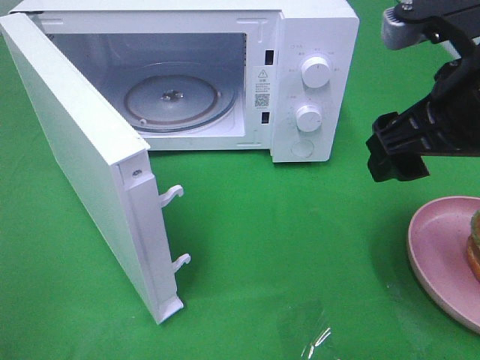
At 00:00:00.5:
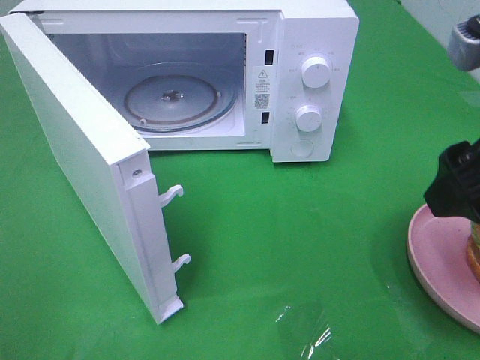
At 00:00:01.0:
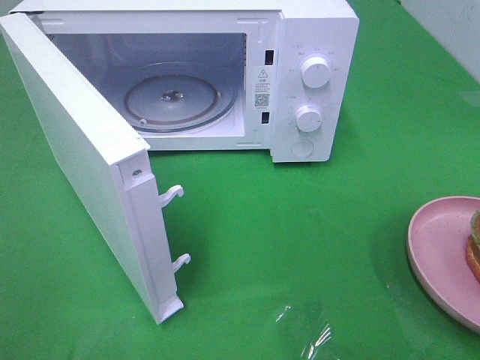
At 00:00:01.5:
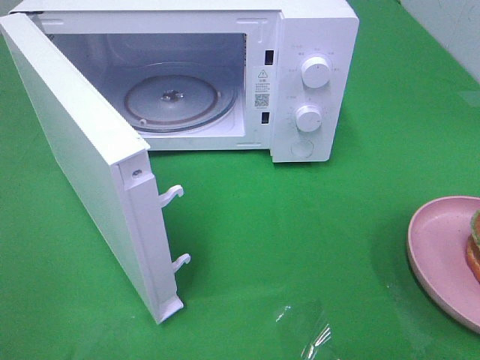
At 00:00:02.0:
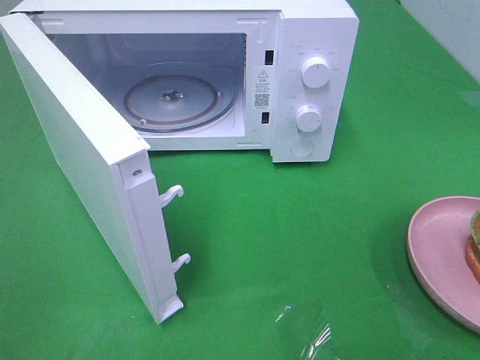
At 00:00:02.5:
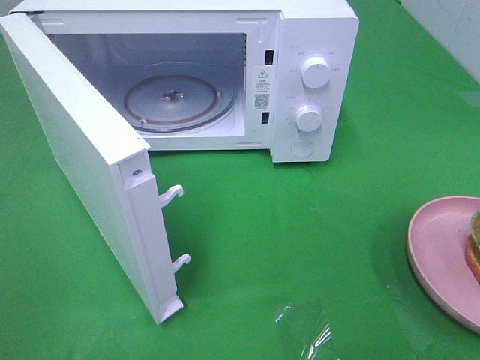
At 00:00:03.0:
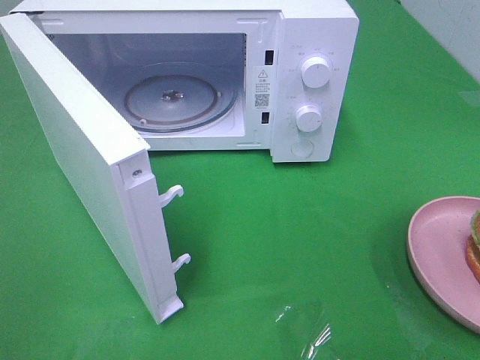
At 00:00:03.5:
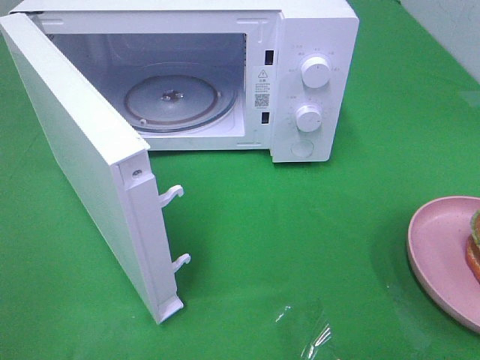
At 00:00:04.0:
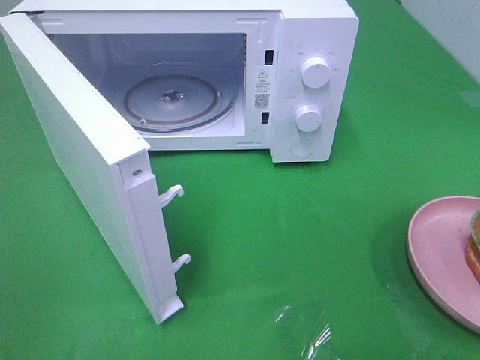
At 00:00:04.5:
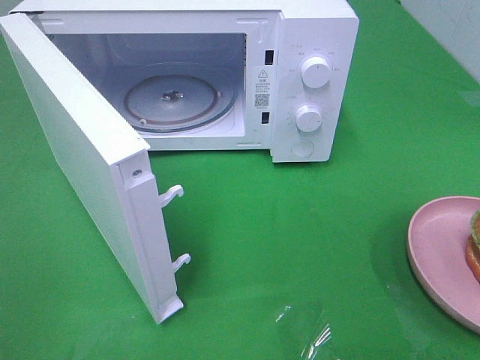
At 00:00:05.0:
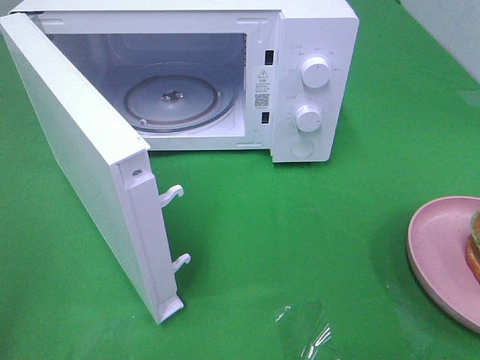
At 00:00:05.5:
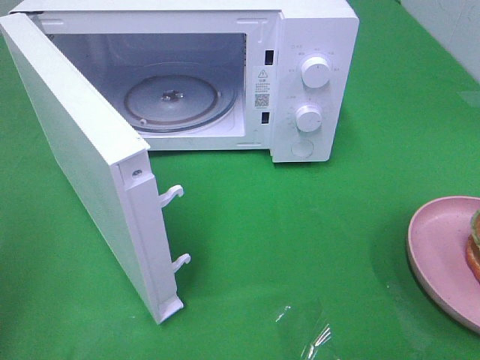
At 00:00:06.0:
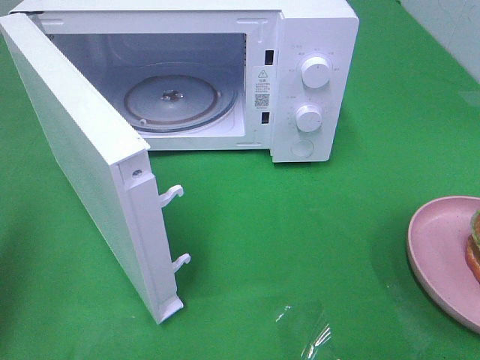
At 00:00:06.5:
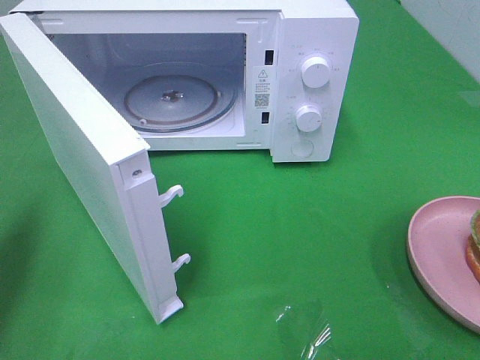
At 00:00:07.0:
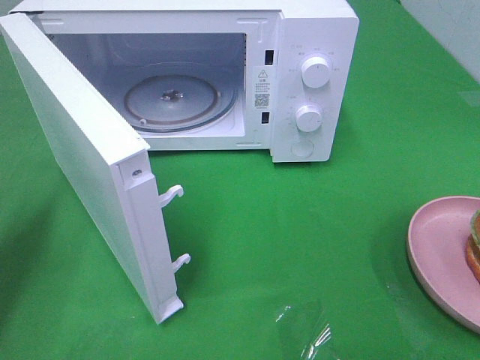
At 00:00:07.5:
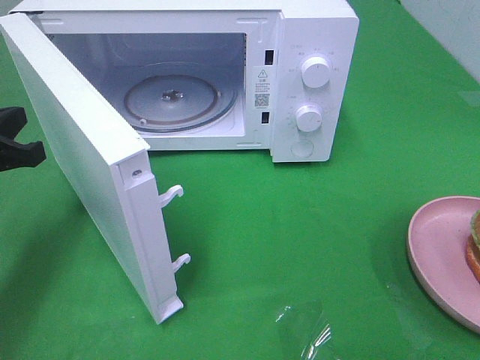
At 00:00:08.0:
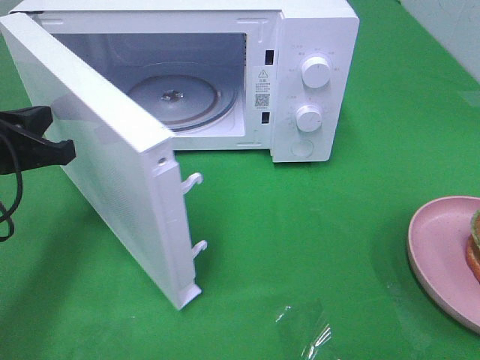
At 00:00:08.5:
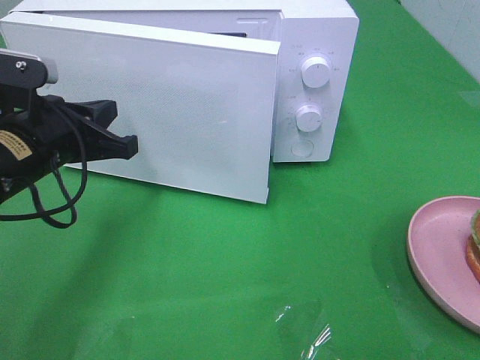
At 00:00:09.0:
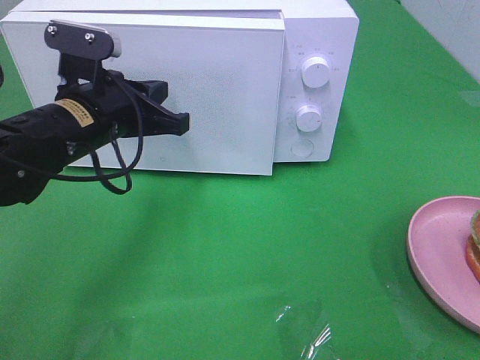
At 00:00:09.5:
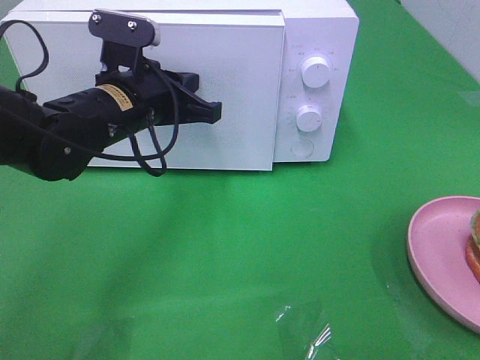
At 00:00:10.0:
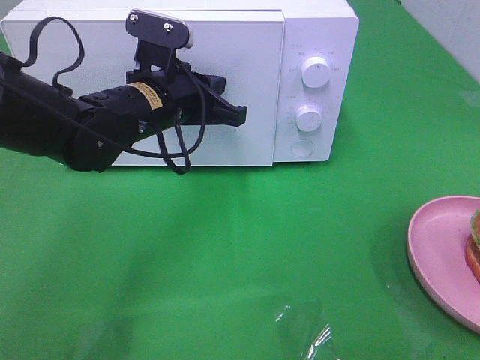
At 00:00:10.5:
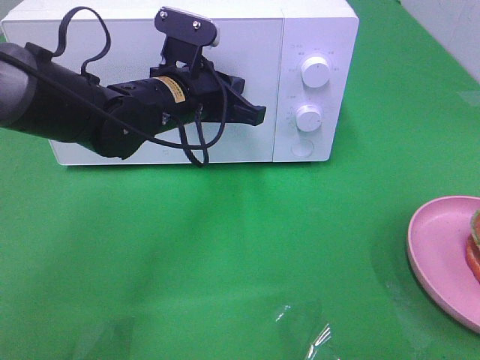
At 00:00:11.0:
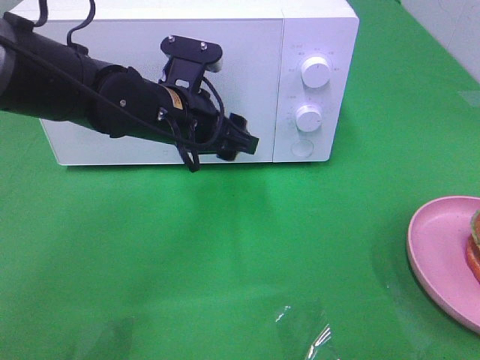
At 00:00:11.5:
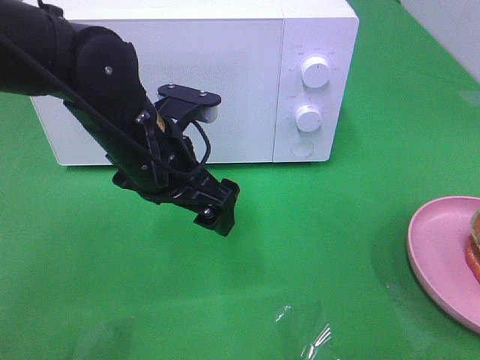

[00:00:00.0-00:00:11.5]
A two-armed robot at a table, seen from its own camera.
Task of the whole recording: Heat the burger.
Step, 00:00:00.0 to 00:00:11.0: Left hand: close the microwave door.
00:00:00.0 to 00:00:02.0: The right gripper travels backward and to the right by roughly 25 cm.
00:00:02.0 to 00:00:04.0: Both grippers stay put.
00:00:04.0 to 00:00:06.0: The left gripper goes about 15 cm forward, and closes.
00:00:06.0 to 00:00:07.5: The left gripper goes roughly 15 cm downward, forward and to the right.
00:00:07.5 to 00:00:09.5: The left gripper goes roughly 20 cm to the right and forward.
00:00:09.5 to 00:00:11.5: The left gripper is displaced backward by about 5 cm, and opens up.

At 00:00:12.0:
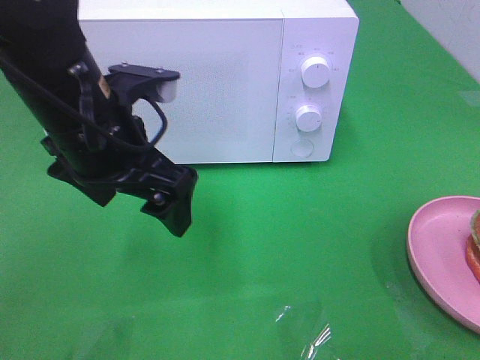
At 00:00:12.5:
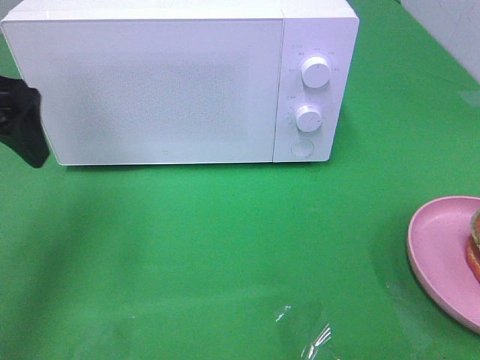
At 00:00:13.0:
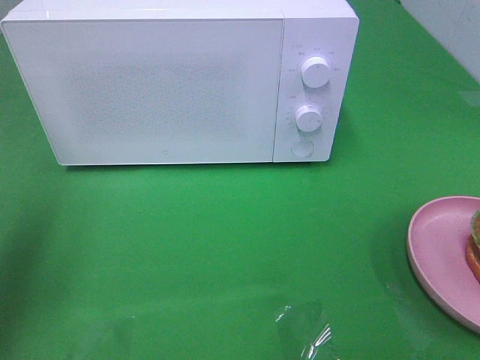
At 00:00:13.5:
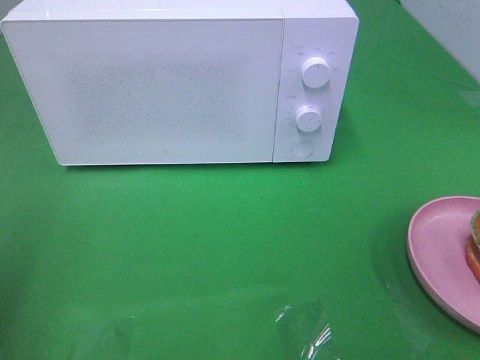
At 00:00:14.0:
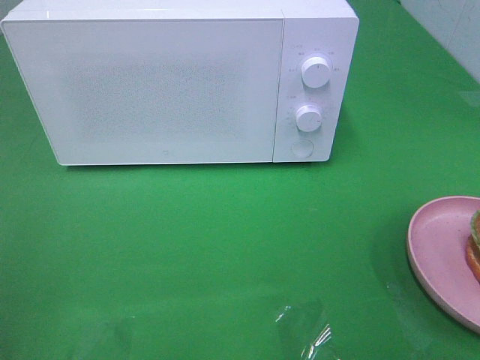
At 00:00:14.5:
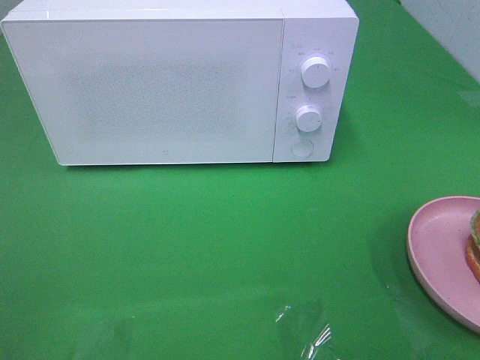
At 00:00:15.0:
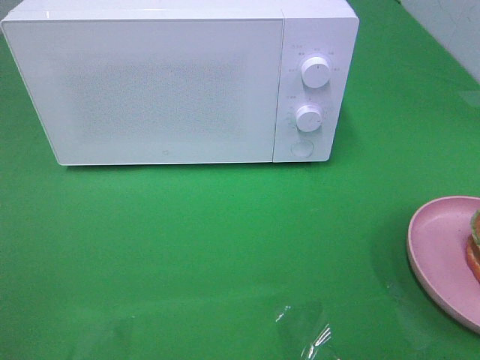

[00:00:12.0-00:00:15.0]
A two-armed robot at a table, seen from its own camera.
Task of the whole recording: Heat the burger.
00:00:12.0 to 00:00:13.5: The left gripper goes some 25 cm to the left and backward.

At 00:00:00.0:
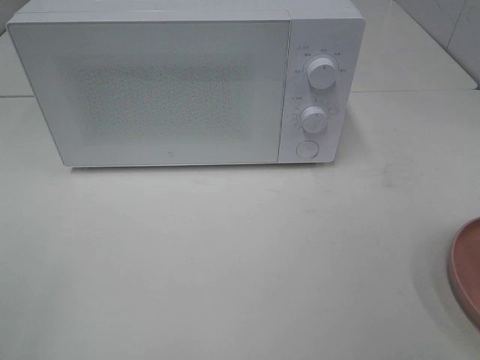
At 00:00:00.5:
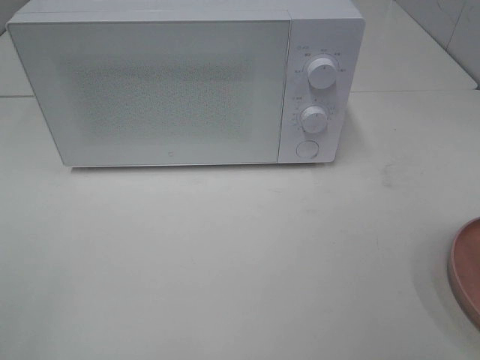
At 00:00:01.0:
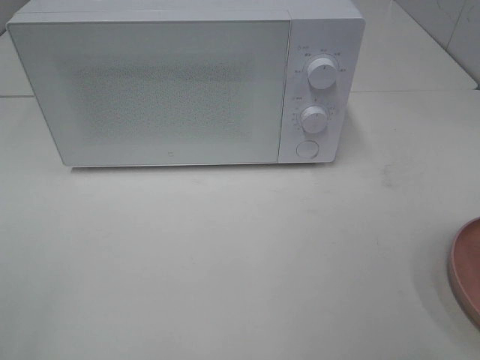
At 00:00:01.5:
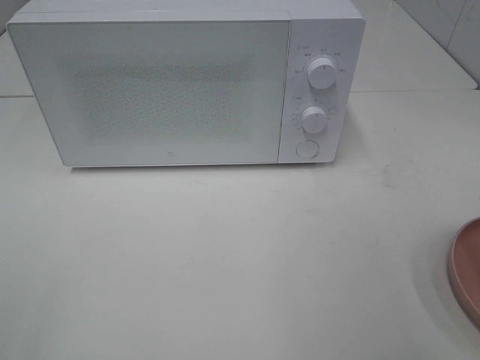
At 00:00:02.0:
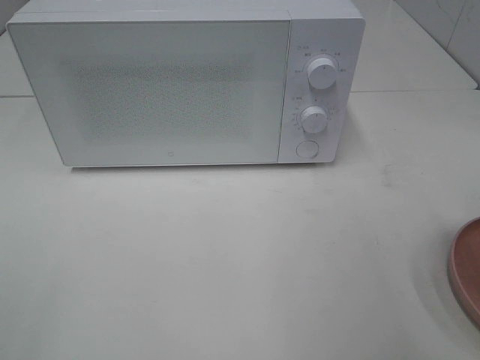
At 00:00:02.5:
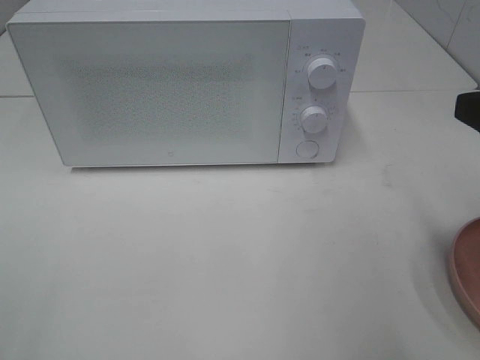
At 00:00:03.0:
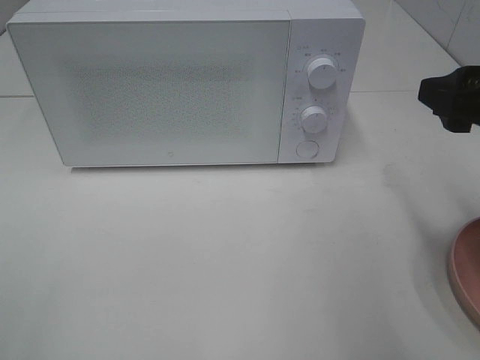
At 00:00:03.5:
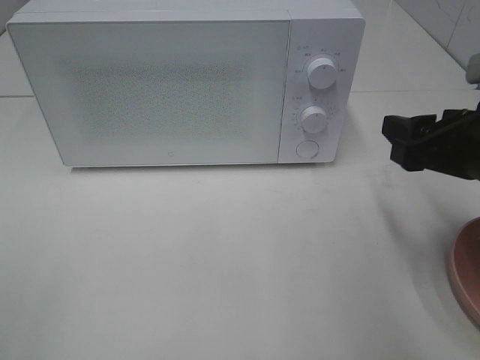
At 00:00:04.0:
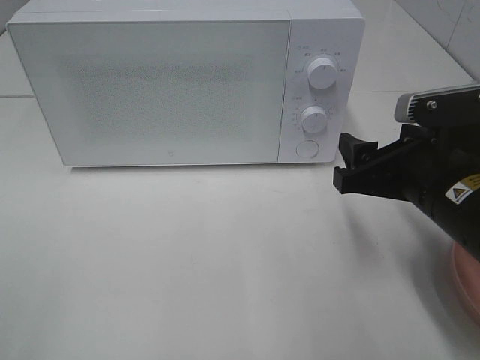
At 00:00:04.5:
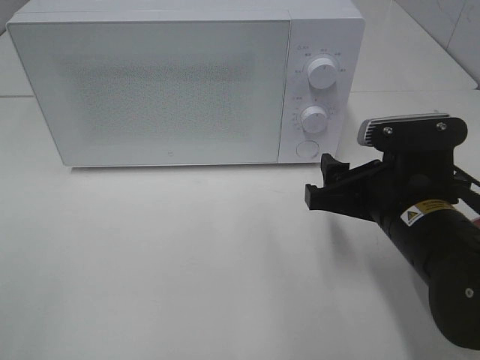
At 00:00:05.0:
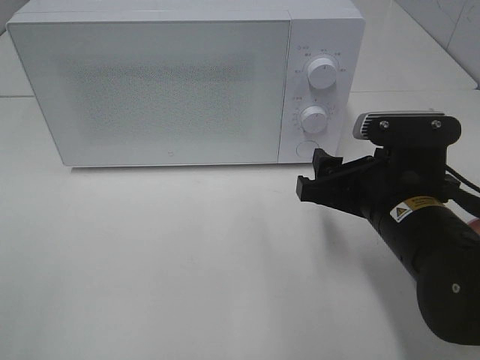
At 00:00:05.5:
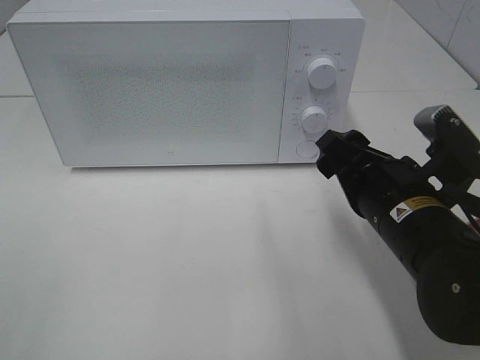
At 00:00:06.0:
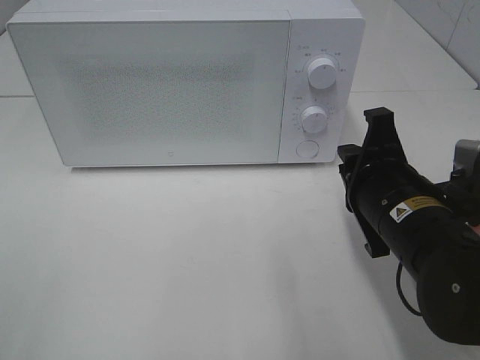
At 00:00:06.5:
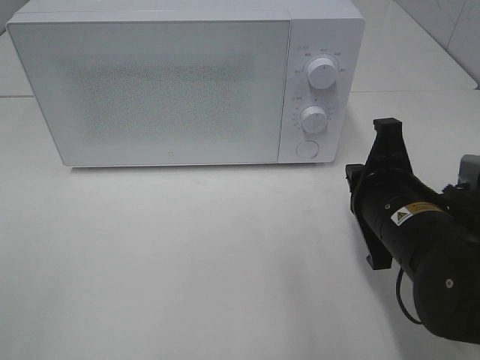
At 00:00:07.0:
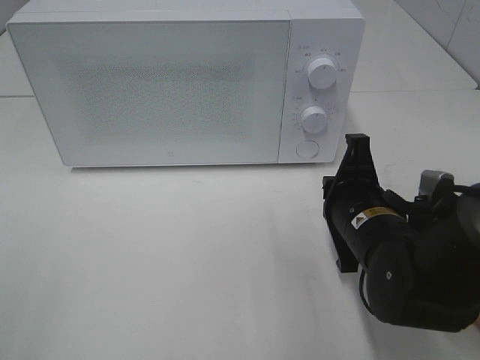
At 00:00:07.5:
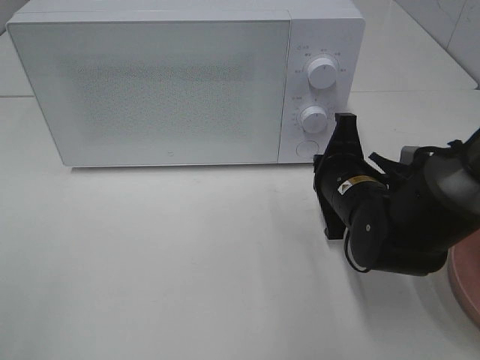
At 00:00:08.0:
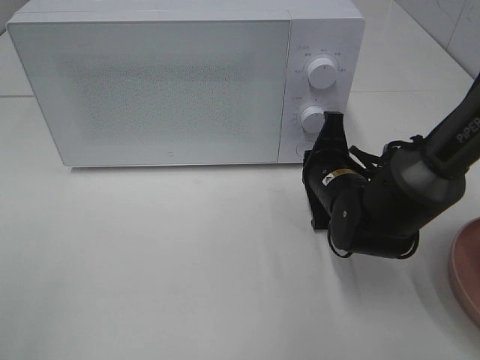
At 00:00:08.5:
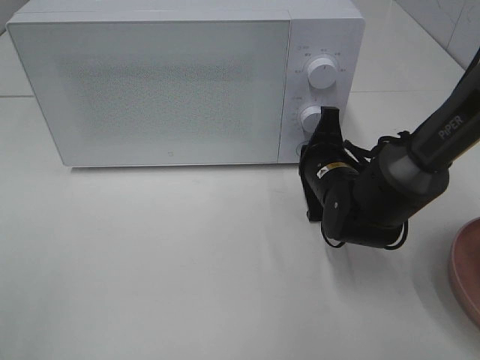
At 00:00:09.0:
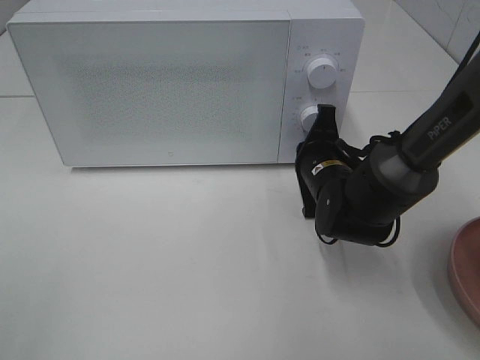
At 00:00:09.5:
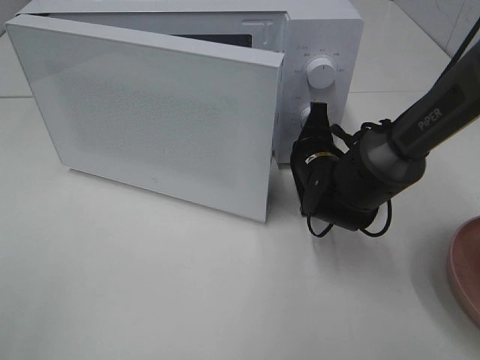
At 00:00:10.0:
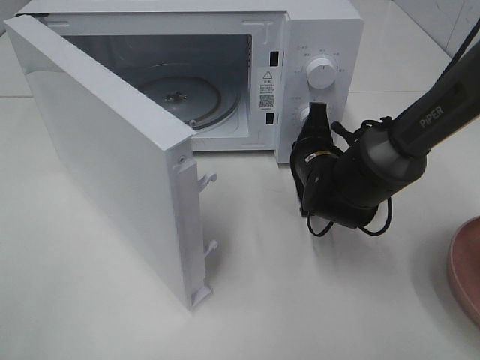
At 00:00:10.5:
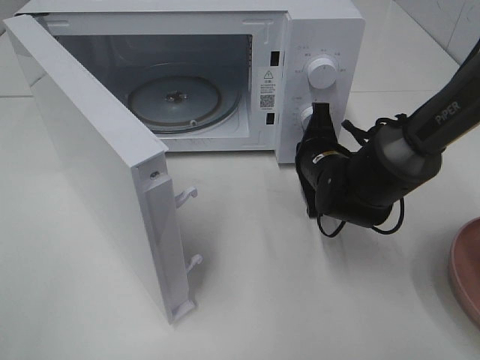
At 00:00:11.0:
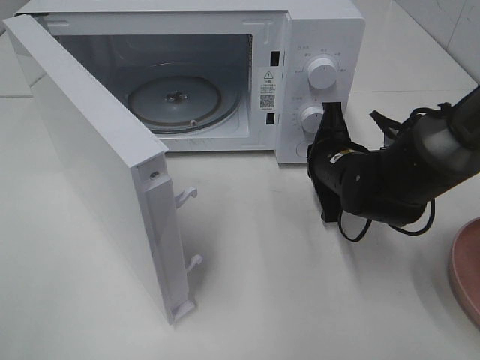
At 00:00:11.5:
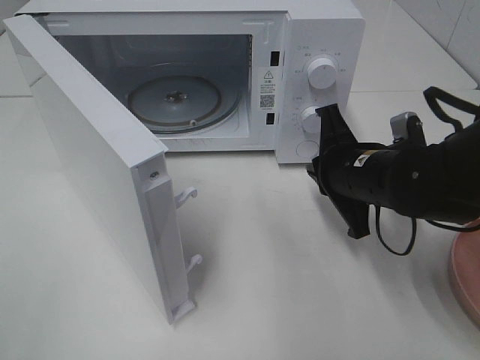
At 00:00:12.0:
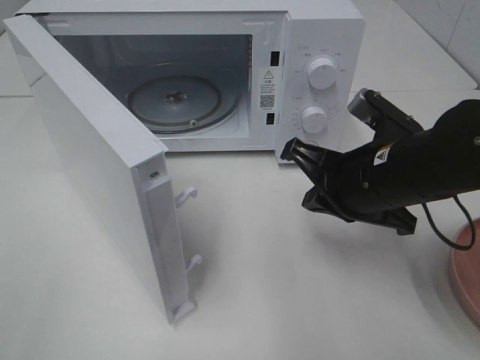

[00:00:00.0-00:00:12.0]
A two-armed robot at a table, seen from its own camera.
Task of the whole recording: Heat the burger.
Step, 00:00:00.0 to 00:00:11.0: Right hand: press the switch.
00:00:02.0 to 00:00:04.0: The right gripper heads downward, forward and to the left, covering roughly 20 cm.
00:00:04.0 to 00:00:06.0: The right gripper closes its fingers.
00:00:06.0 to 00:00:08.0: The right gripper travels forward and downward by about 10 cm.
00:00:10.0 to 00:00:12.0: The right gripper moves backward and upward, about 15 cm.
